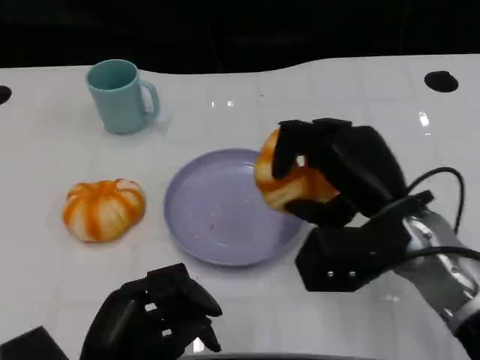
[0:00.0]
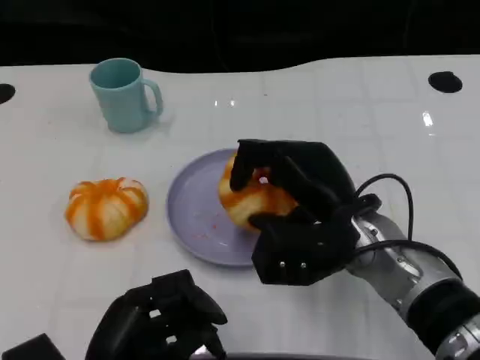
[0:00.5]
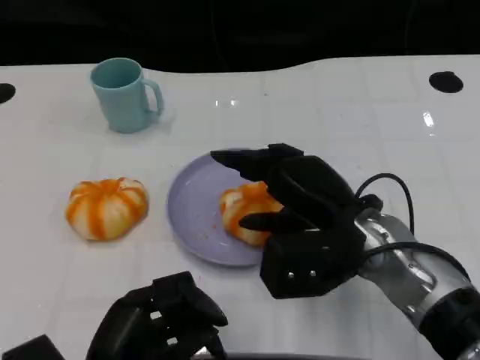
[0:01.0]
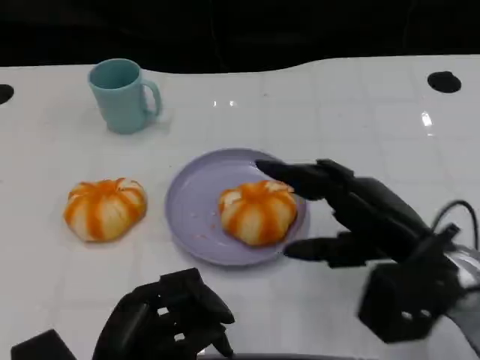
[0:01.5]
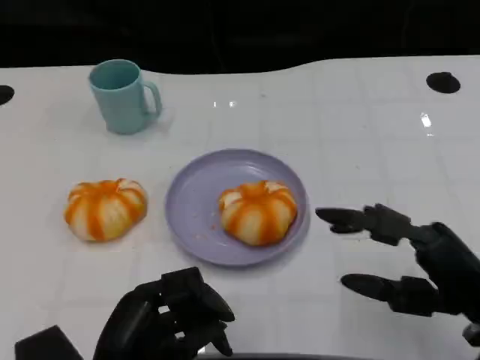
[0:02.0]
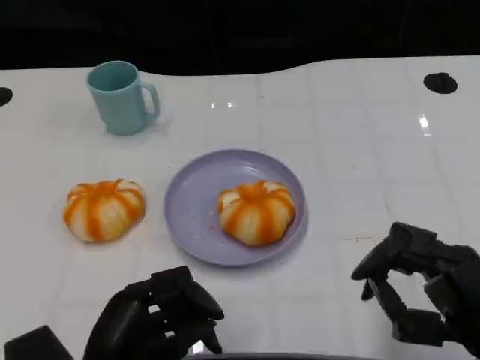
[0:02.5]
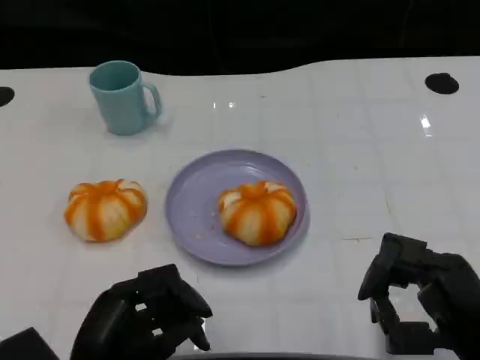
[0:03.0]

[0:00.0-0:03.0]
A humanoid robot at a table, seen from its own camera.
Task of the whole recording: Grasp the bread from the table and place it into the plate.
0.0 to 1.5 s: The right hand ends up some 5 cm from where it was.
1.5 to 3.0 s: The right hand is displaced backward by roughly 10 cm.

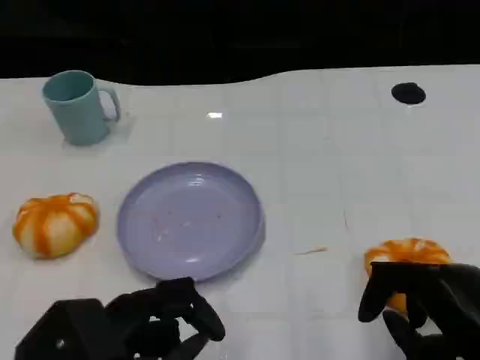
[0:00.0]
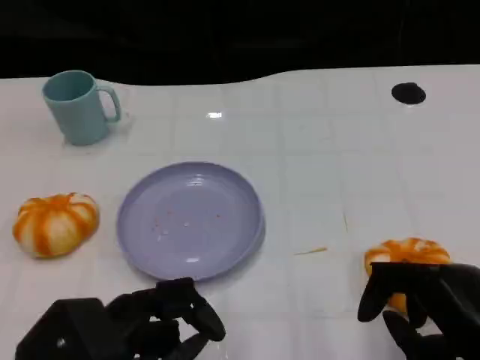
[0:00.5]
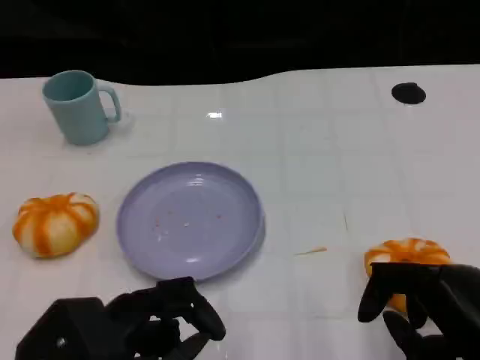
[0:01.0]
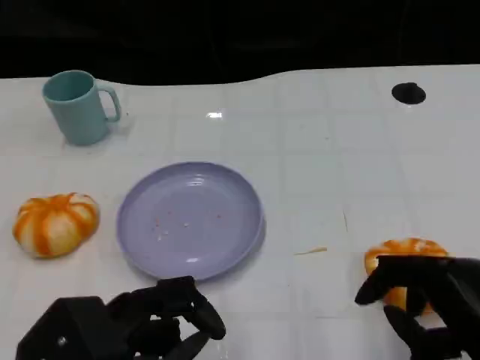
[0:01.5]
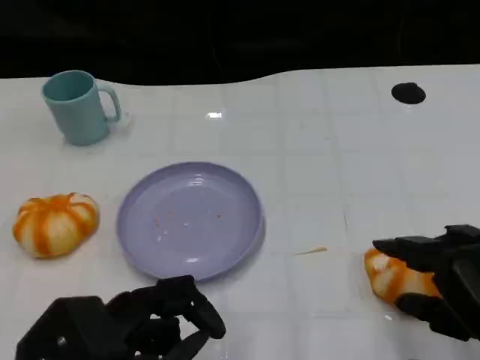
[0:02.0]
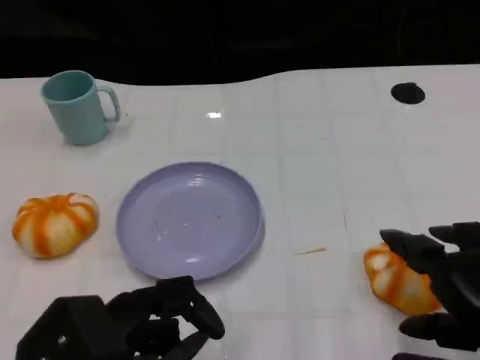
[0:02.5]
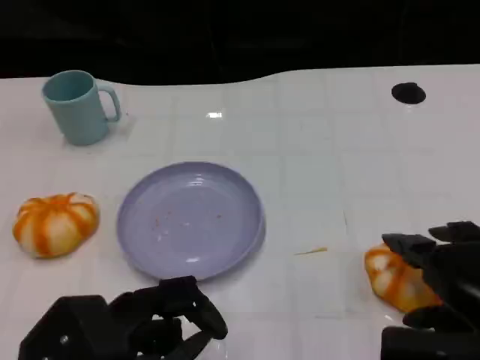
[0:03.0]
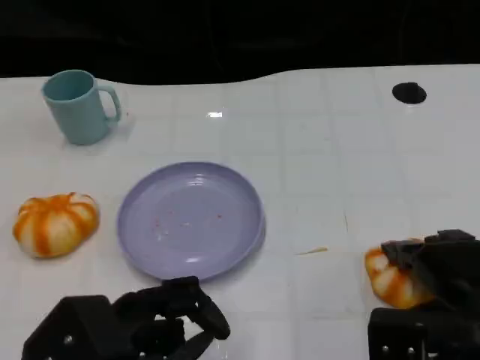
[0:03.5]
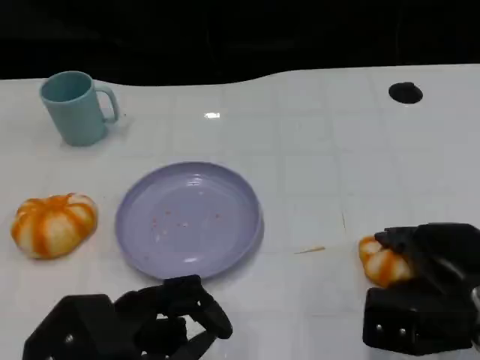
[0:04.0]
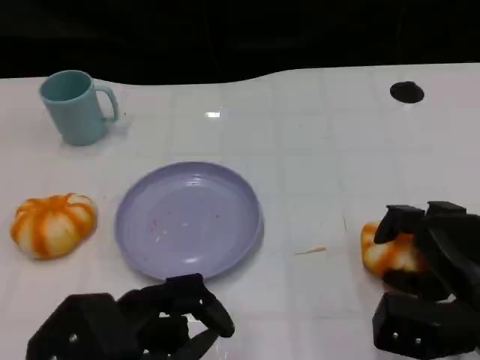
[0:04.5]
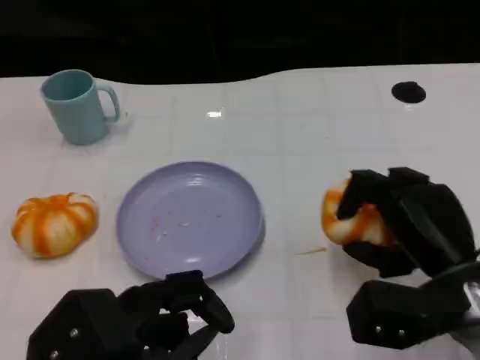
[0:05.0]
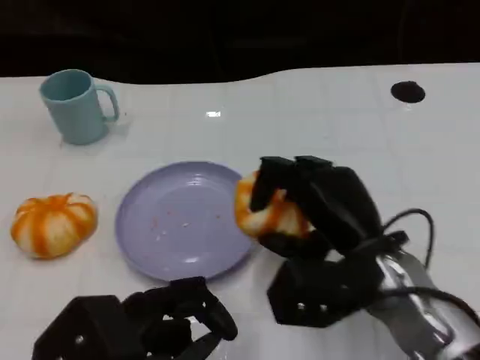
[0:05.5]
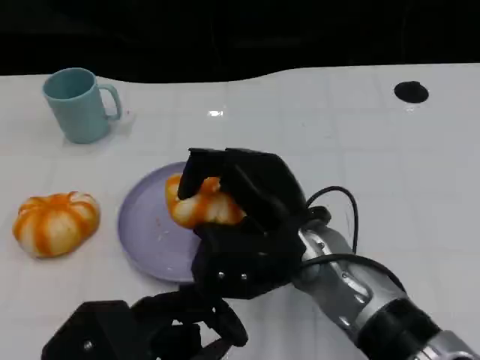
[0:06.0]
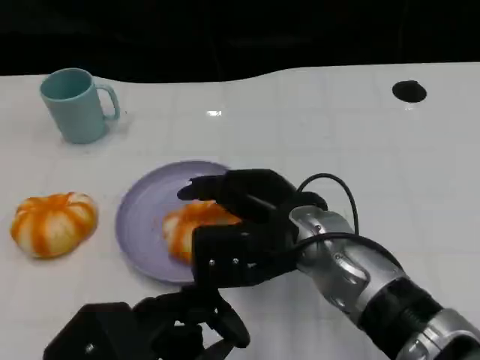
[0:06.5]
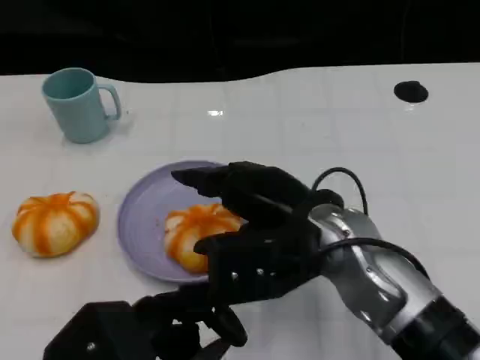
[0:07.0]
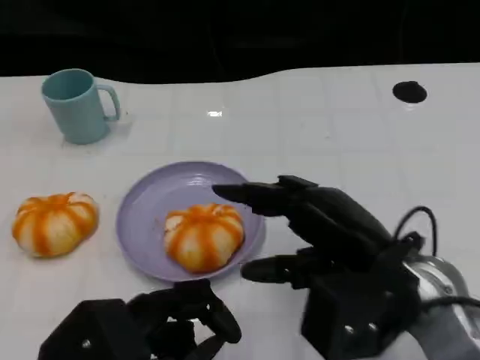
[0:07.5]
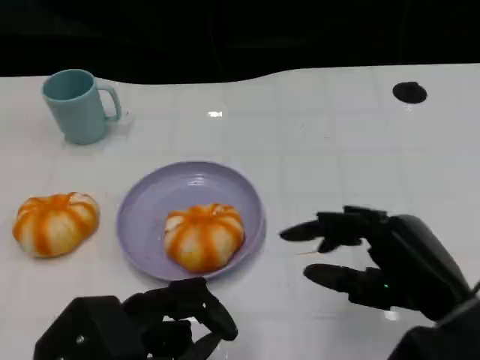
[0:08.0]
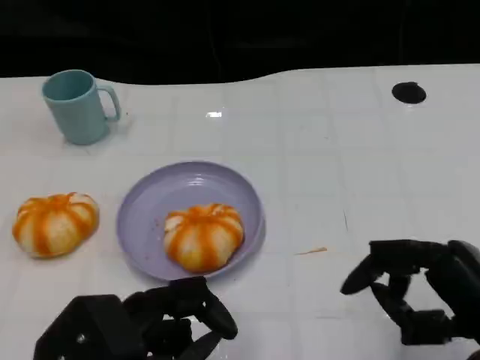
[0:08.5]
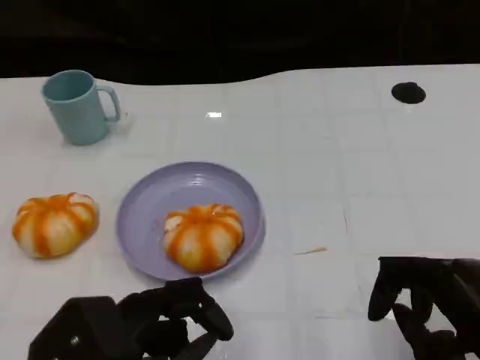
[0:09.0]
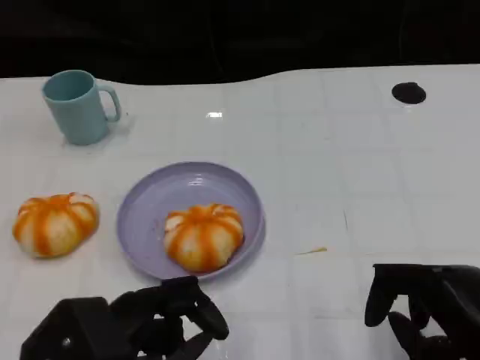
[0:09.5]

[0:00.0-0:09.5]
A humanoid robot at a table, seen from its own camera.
Task of the whole recording: Grasp the bread from the table and place it into the plate.
2.0 to 4.0 s: The right hand goes about 10 cm forward and downward.
4.0 to 5.5 s: The right hand is displaced to the left by some 10 cm.
5.5 to 7.5 s: The right hand shifts by roughly 5 cm.
7.5 to 9.5 s: The right hand goes about 10 cm to the right, backward and downward.

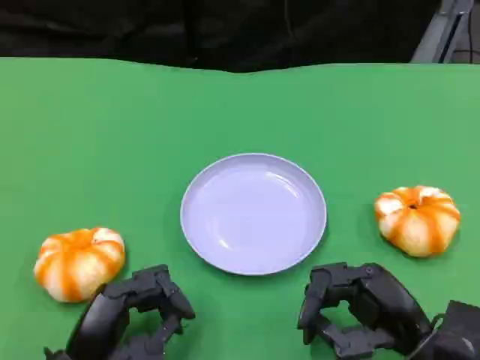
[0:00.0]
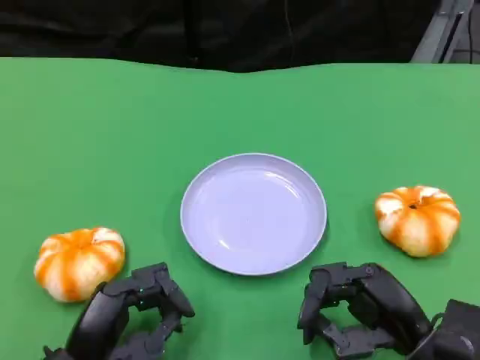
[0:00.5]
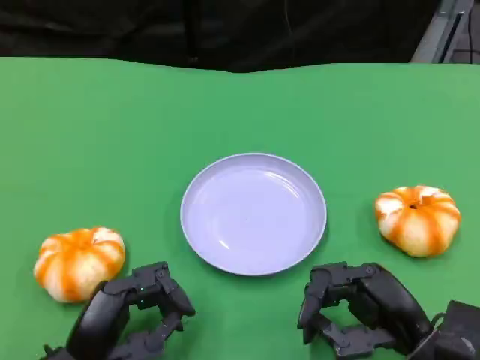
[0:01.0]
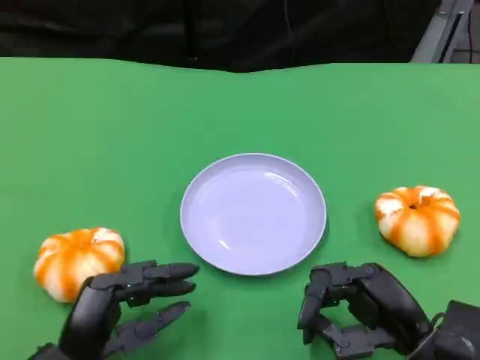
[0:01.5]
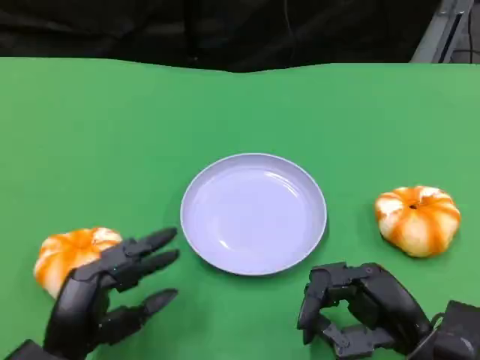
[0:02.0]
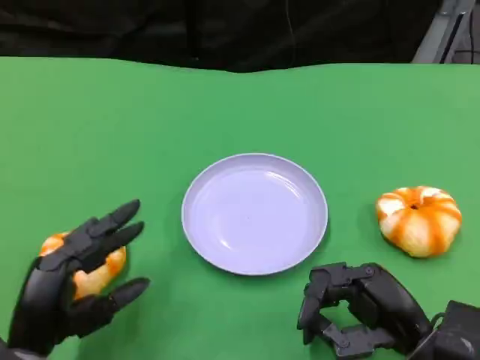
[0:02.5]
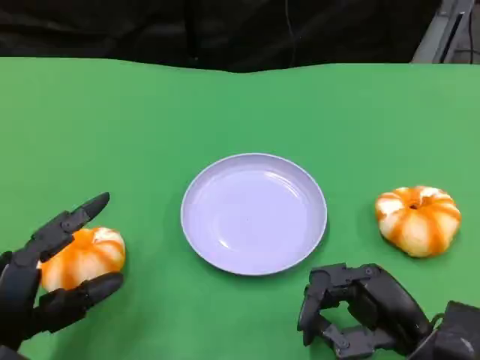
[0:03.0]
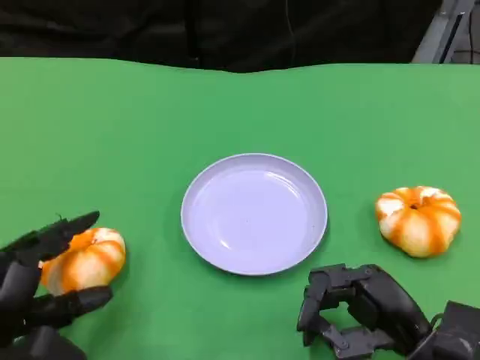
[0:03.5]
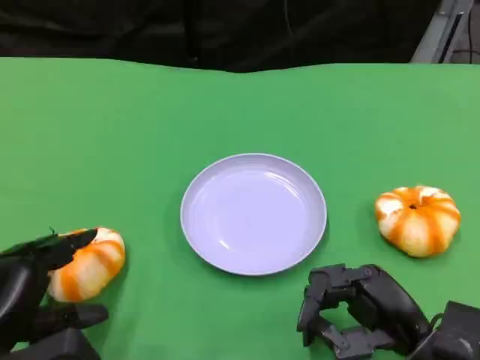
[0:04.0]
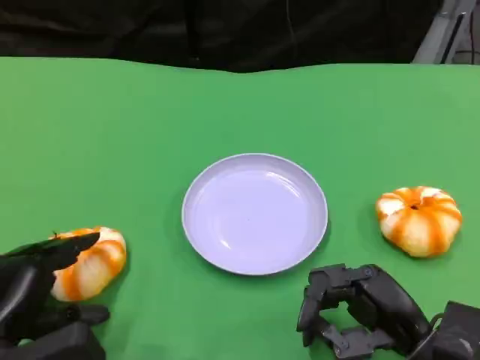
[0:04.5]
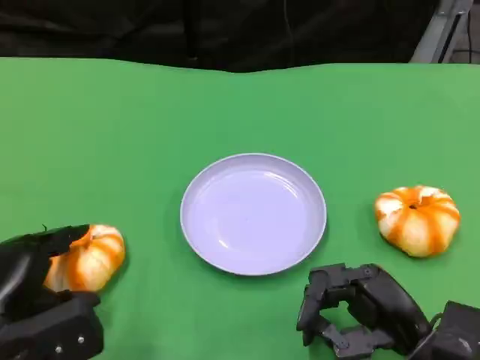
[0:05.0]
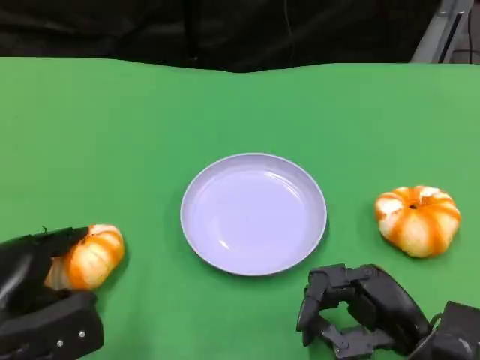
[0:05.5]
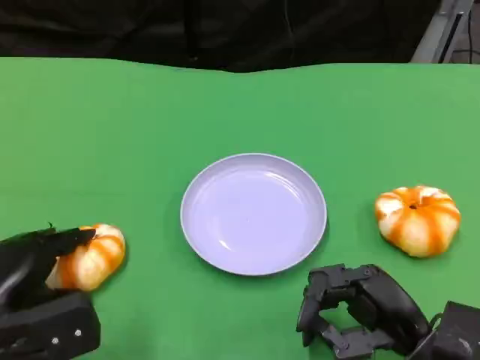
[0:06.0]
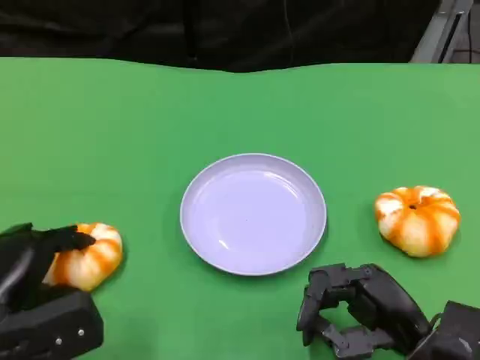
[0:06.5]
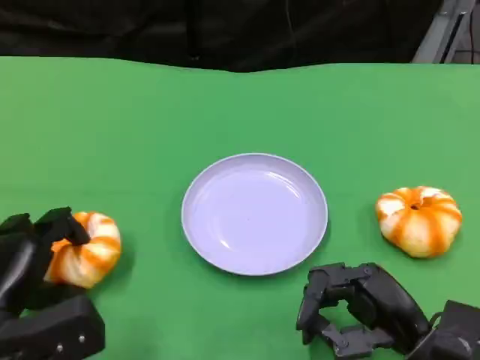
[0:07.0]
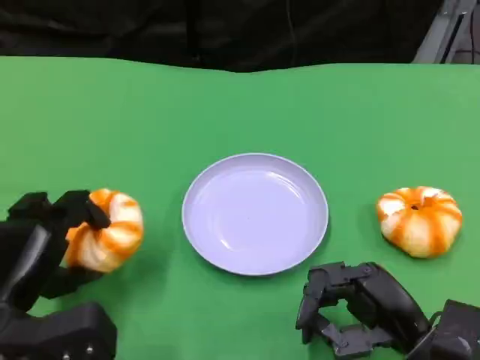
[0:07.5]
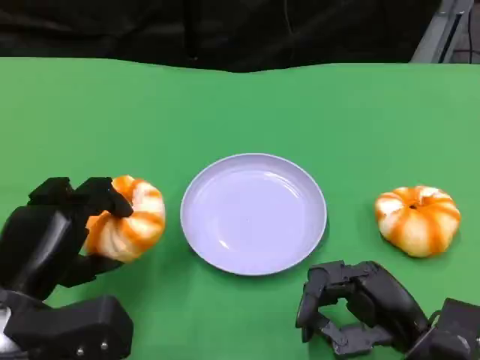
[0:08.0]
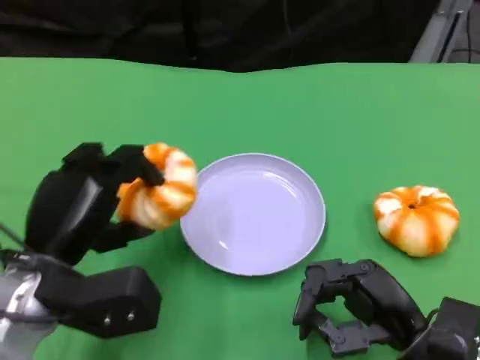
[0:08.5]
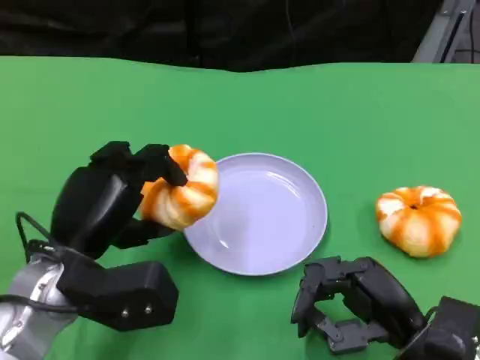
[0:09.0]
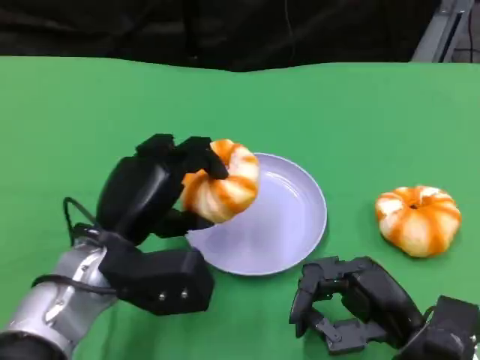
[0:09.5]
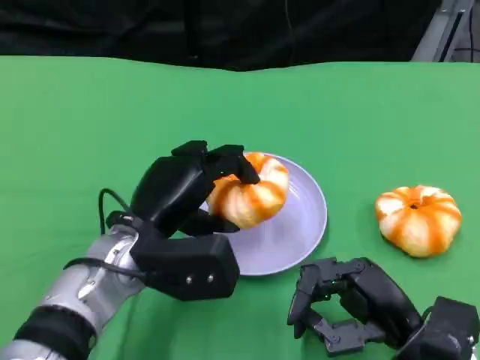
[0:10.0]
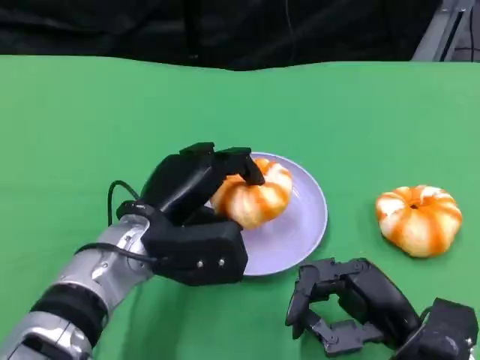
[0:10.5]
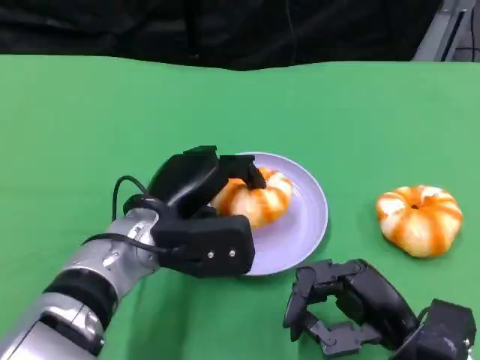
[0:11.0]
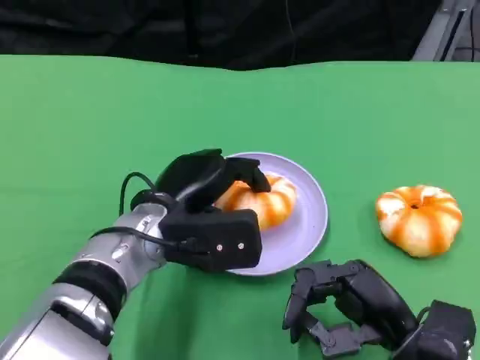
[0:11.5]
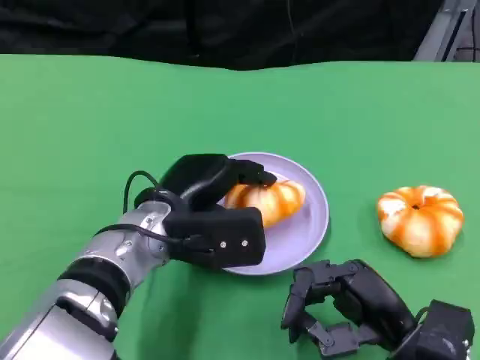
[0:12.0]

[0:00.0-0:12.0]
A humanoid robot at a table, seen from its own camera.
Task of the whole recording: Grasp the bread from the table and place it into the plate.
0.0 to 2.0 s: The hands move only a little.
2.0 to 4.0 s: The left hand moves to the left, about 5 cm.
4.0 to 6.0 s: The hands move only a little.
6.0 to 8.0 s: The left hand changes place by some 5 cm.
8.0 to 10.0 s: The left hand shifts about 15 cm to the right and forward.

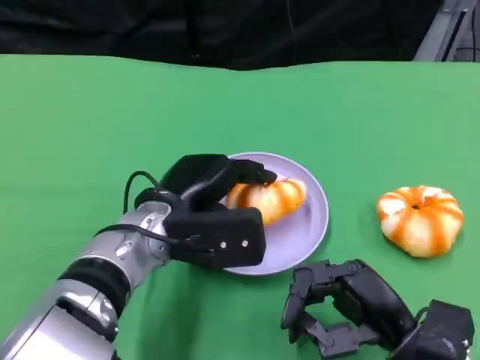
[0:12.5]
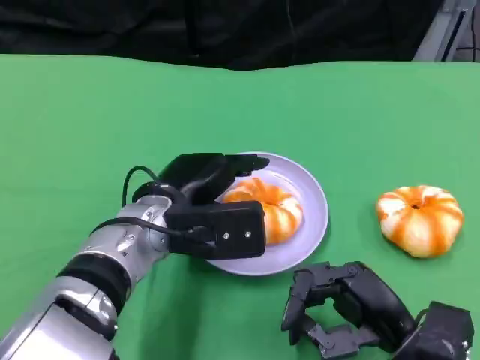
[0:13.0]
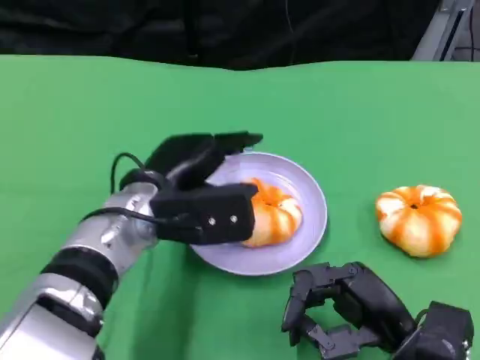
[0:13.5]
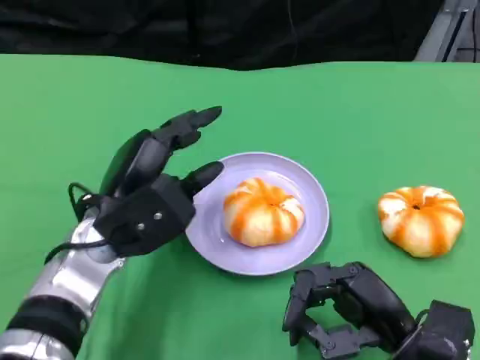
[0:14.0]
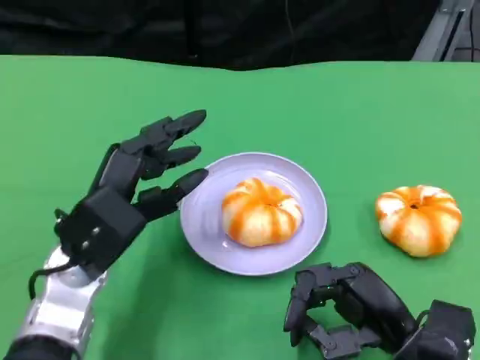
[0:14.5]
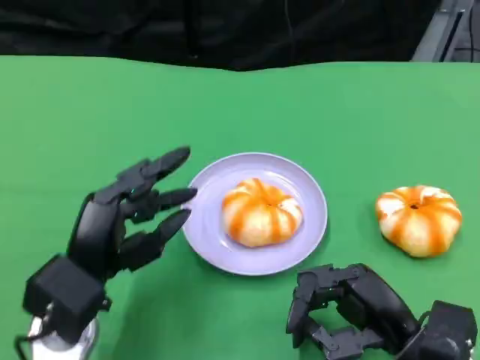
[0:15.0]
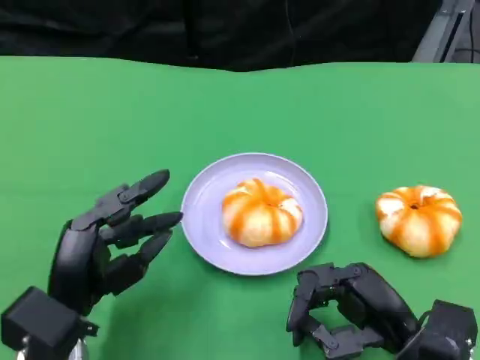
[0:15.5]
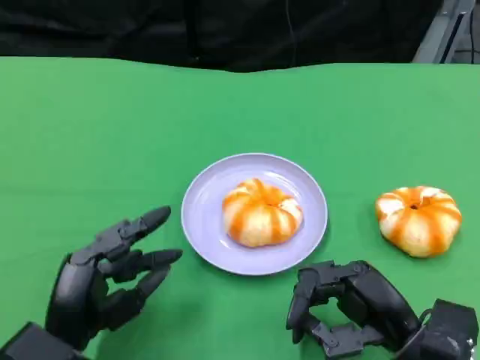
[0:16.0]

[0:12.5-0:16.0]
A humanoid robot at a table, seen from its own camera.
Task of the whole recording: Grasp the bread from the table and place it into the plate.
12.5 to 14.5 s: The left hand travels to the left by approximately 5 cm.
14.5 to 16.0 s: The left hand travels backward and downward by some 10 cm.
